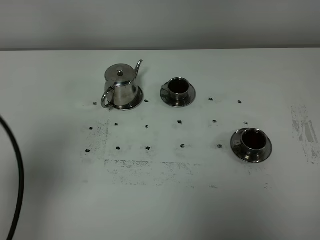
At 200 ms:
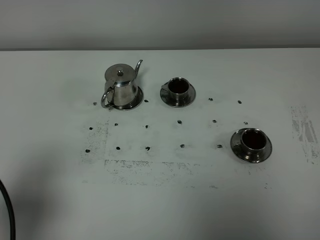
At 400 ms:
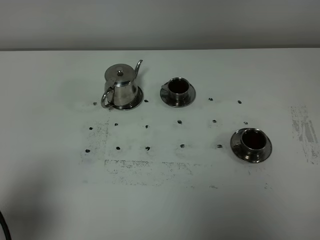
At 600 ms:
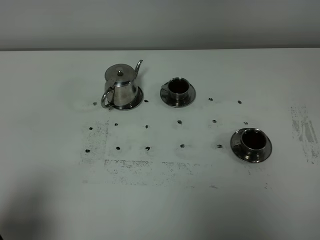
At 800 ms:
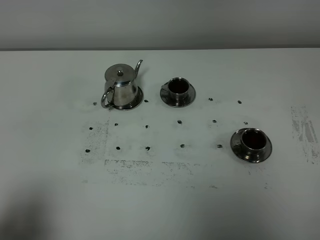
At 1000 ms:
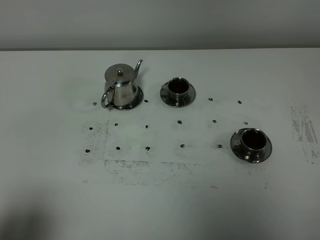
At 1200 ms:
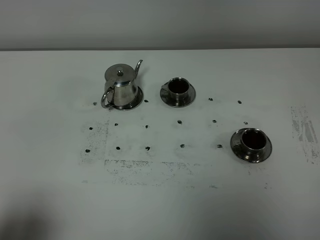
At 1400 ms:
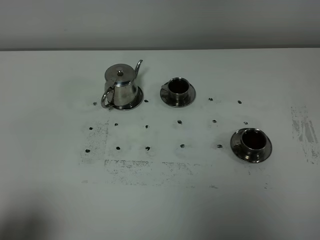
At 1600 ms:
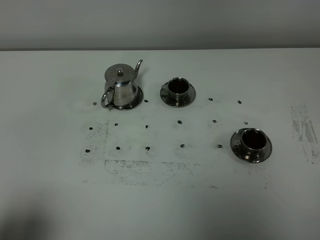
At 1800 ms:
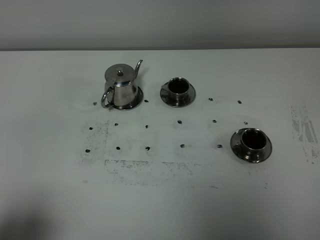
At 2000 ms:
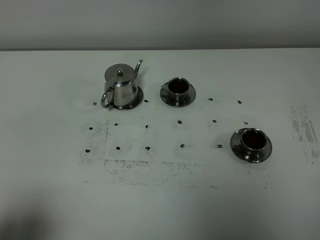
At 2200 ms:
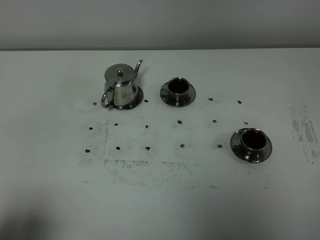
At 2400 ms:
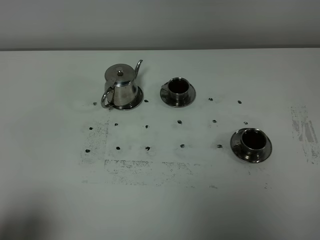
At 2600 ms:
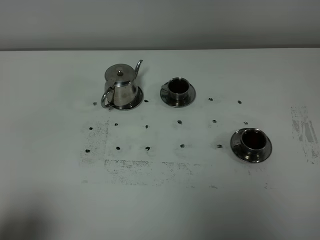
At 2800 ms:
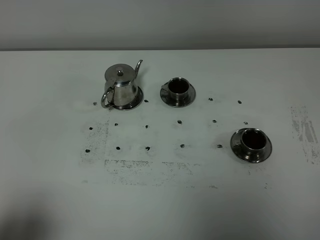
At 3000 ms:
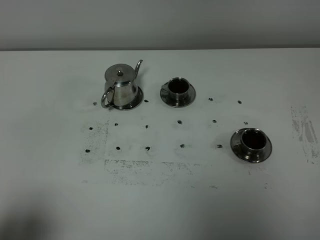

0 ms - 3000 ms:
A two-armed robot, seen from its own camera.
Task of the whole recording: grasp the stainless steel teapot and pour the tea into the two stainless steel teacups one by one, put the stainless steel teapot back in its original place.
0 ms - 1600 ms: The left gripper is displaced backward and downward by about 15 cm.
1600 ms - 3000 ms: Both grippers stay about where they are.
